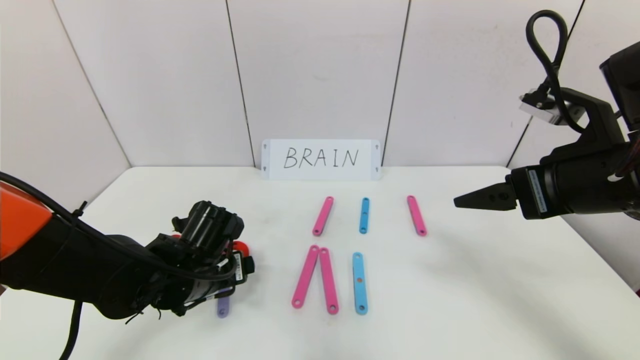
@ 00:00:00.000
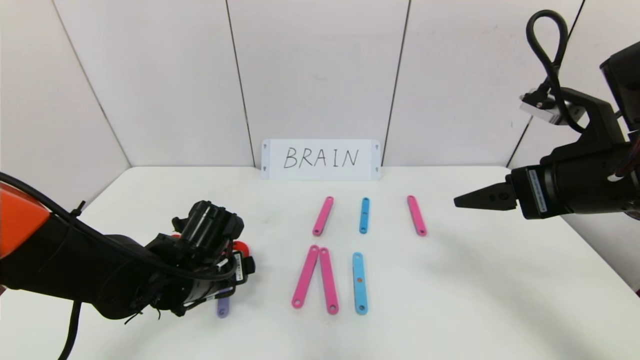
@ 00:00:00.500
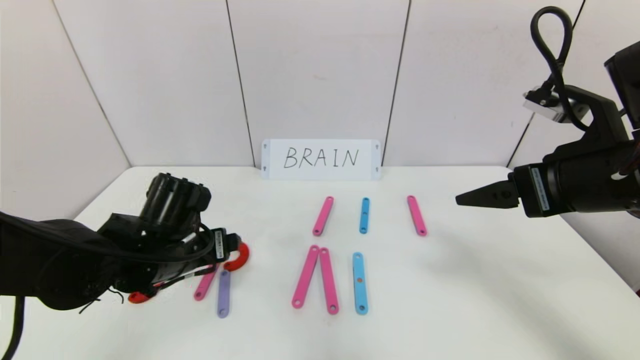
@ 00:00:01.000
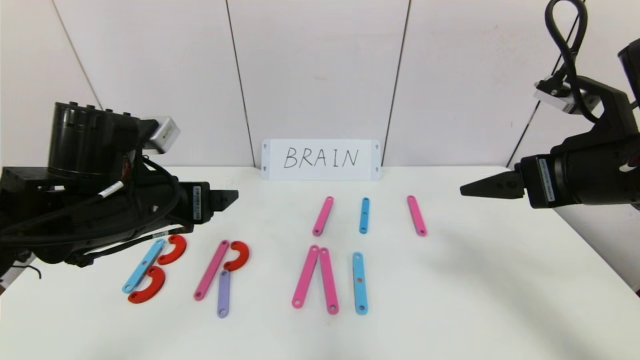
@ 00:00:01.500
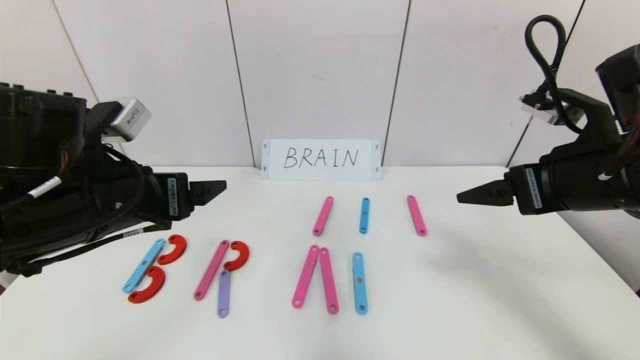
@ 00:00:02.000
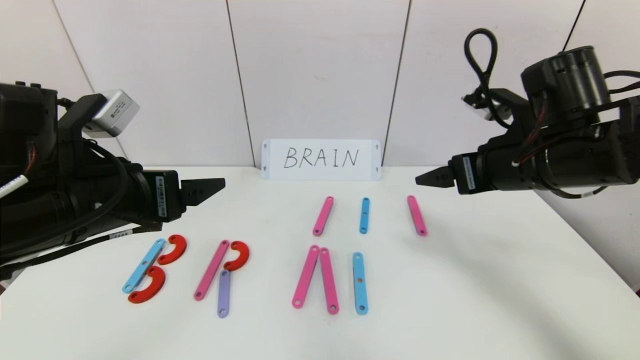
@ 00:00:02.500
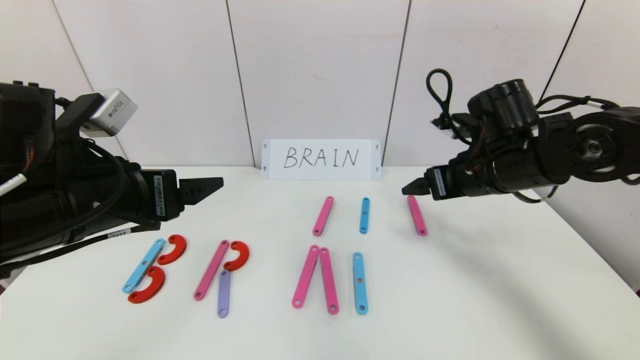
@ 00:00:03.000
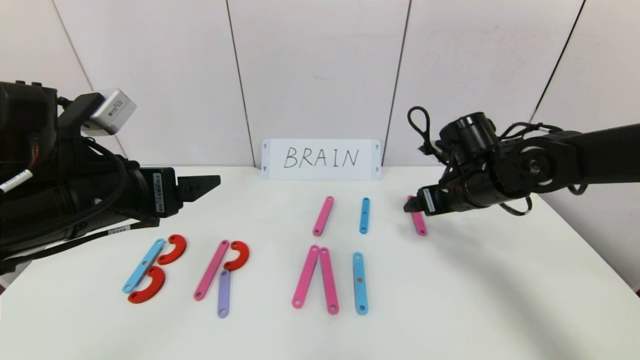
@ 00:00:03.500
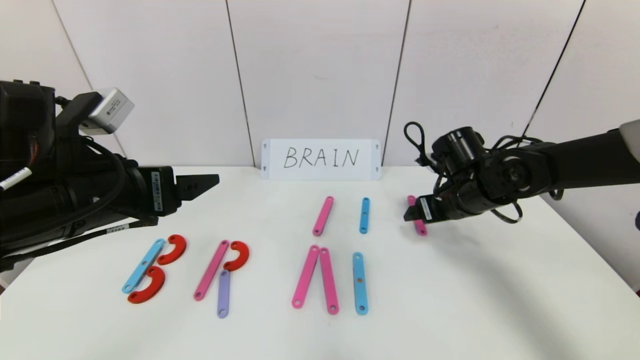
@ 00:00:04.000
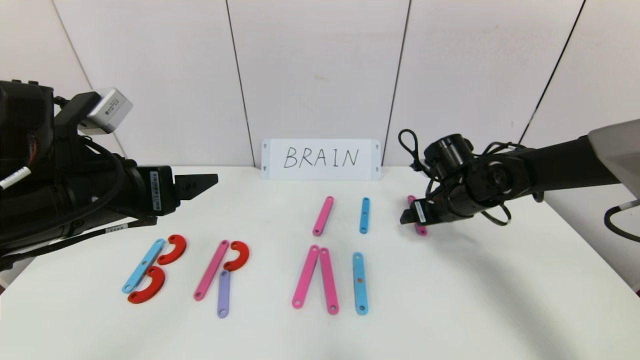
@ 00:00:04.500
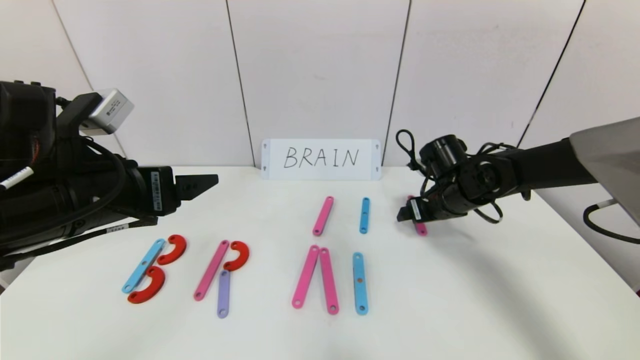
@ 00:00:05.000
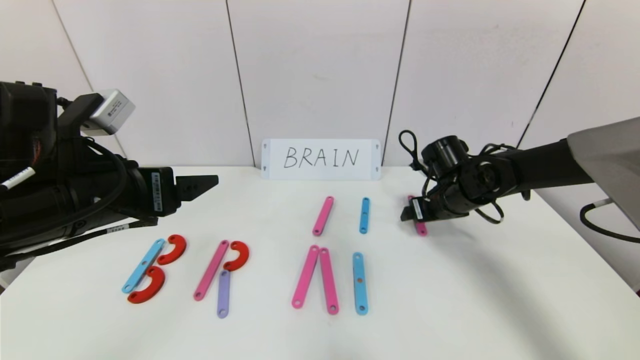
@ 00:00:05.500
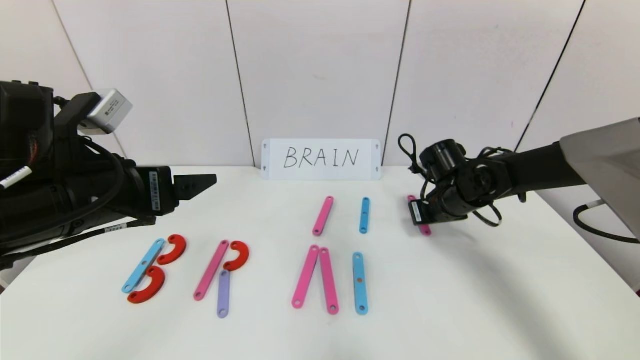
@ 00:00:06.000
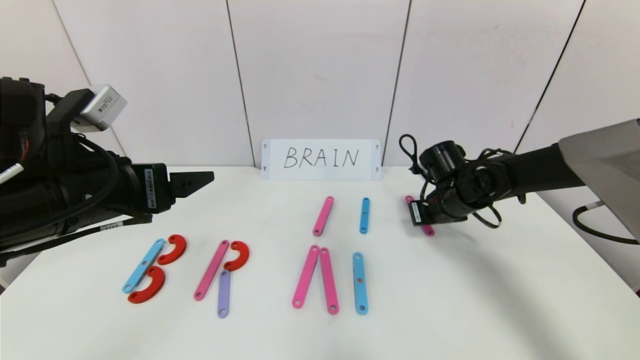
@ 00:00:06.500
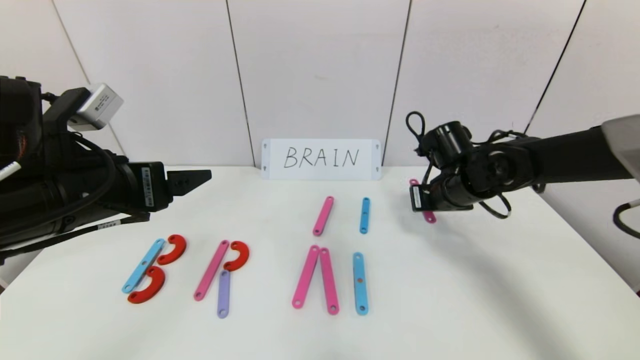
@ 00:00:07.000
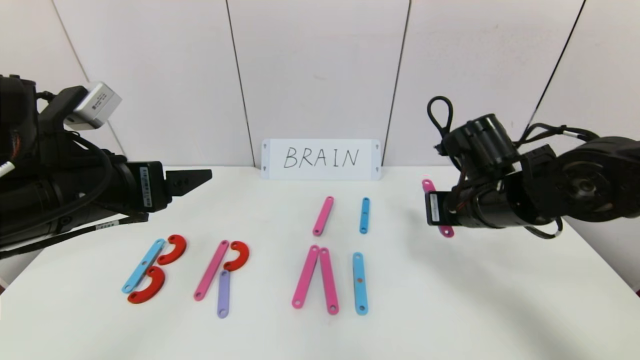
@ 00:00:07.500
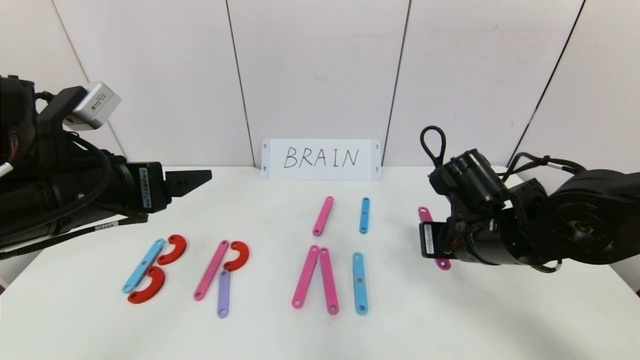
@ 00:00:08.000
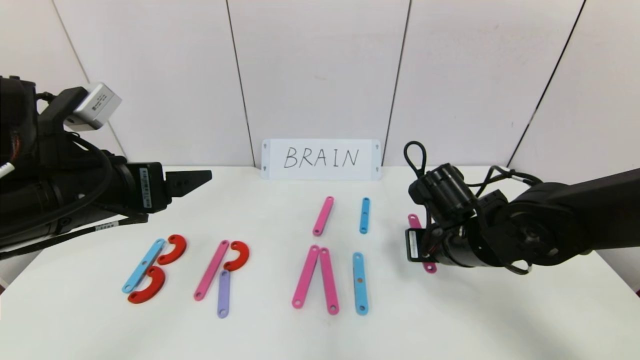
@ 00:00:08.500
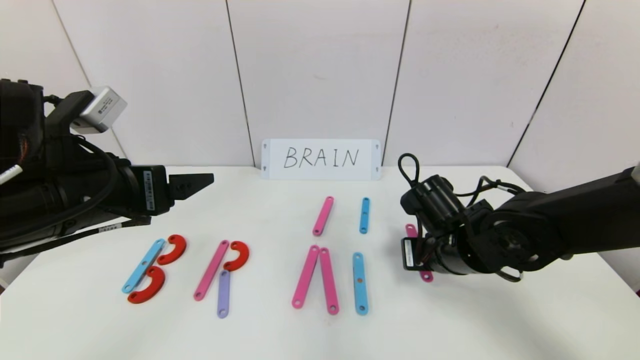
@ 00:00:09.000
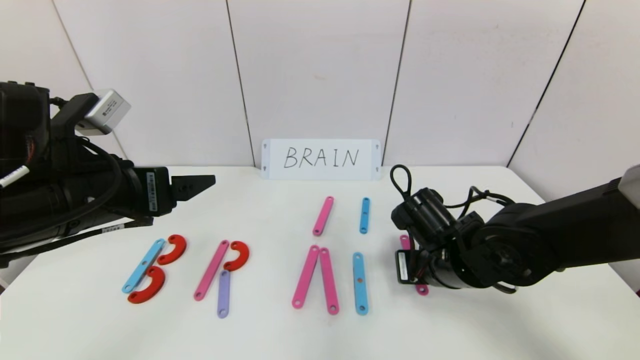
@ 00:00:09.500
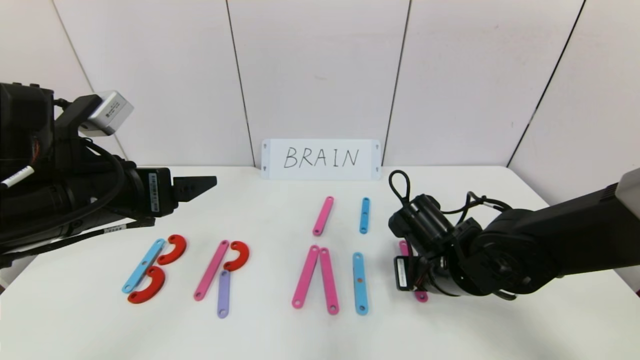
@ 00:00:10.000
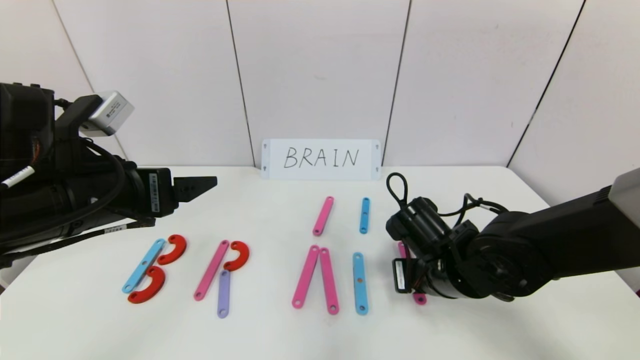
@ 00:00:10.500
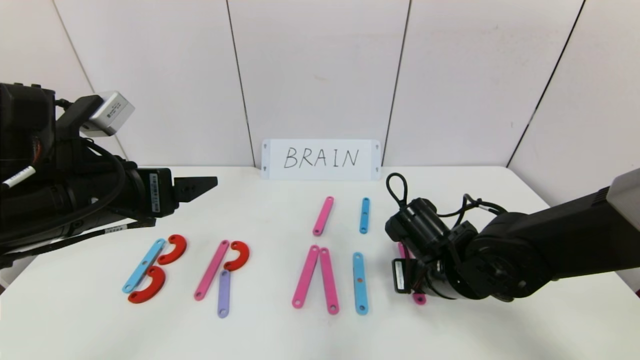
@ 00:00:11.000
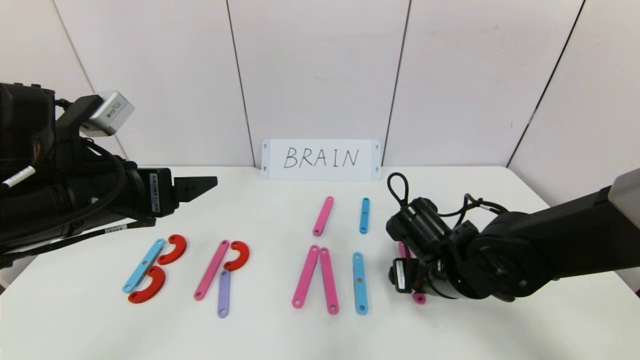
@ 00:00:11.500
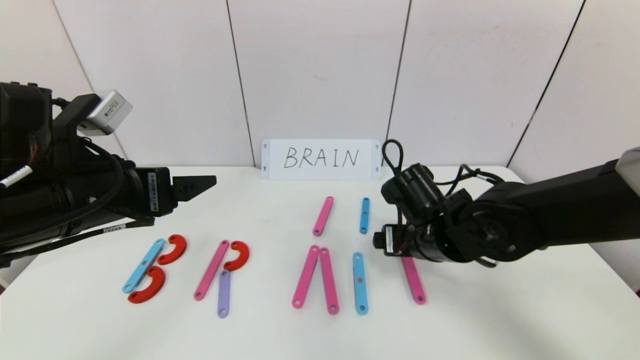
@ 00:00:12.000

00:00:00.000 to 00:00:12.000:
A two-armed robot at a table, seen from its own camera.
Task of the whole recording: rearrange the word baai as brain.
00:00:00.000 to 00:00:02.000: The left gripper is displaced upward by about 15 cm.
00:00:02.000 to 00:00:04.000: The right gripper goes approximately 20 cm forward and downward.
00:00:04.000 to 00:00:06.000: The right gripper closes its fingers.
00:00:06.000 to 00:00:08.000: The right gripper shifts roughly 15 cm backward.
00:00:08.000 to 00:00:10.000: The right gripper heads downward, covering about 5 cm.
00:00:10.000 to 00:00:12.000: The right gripper opens its fingers.

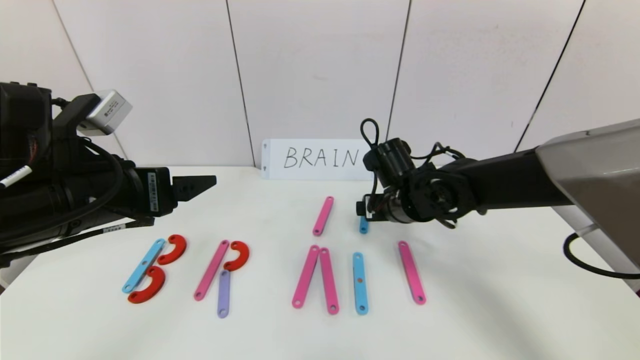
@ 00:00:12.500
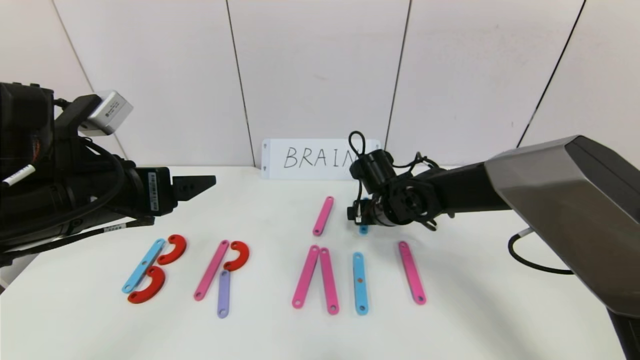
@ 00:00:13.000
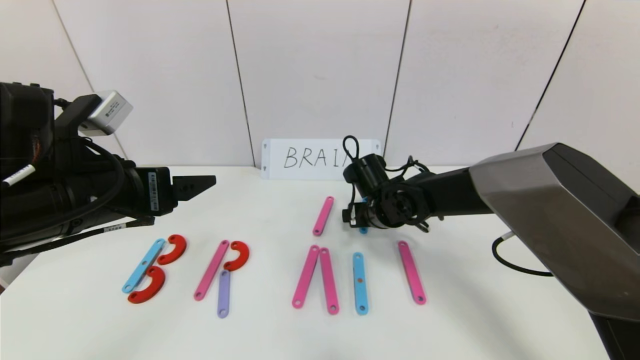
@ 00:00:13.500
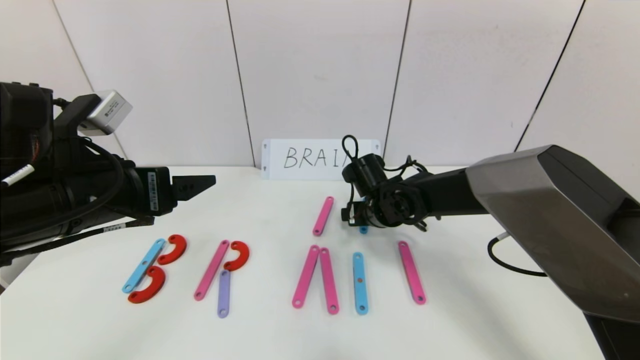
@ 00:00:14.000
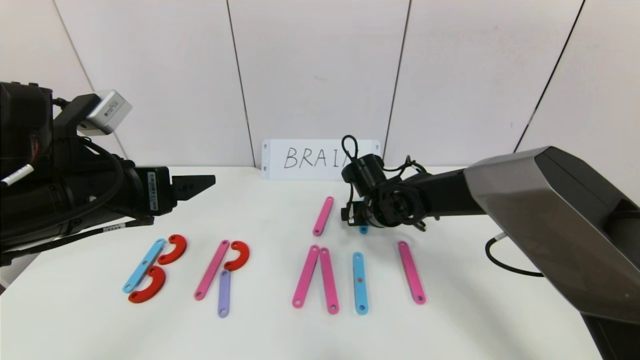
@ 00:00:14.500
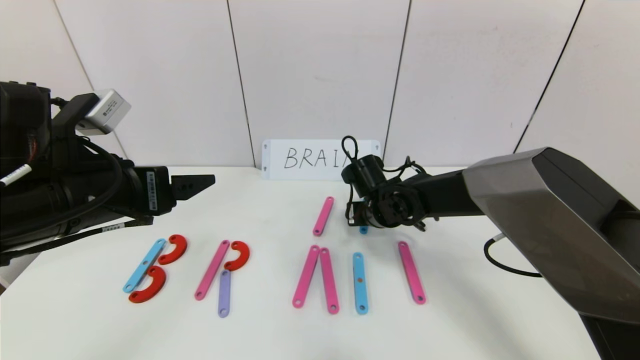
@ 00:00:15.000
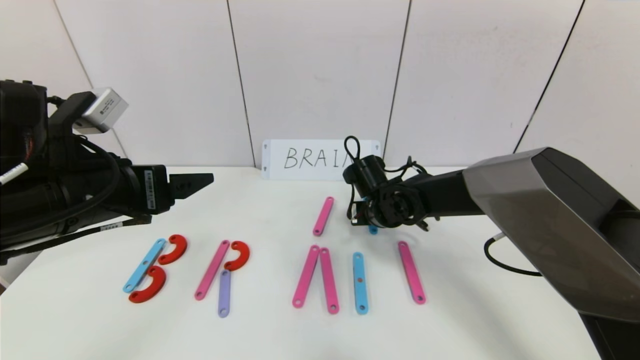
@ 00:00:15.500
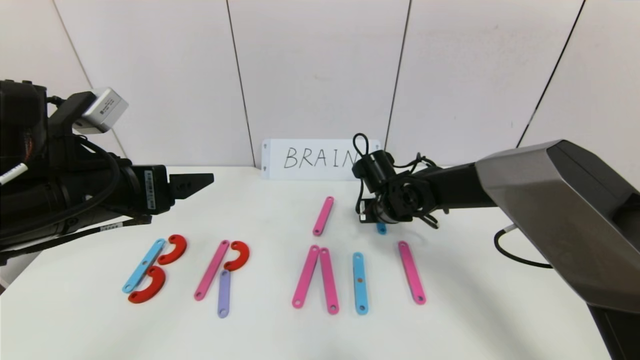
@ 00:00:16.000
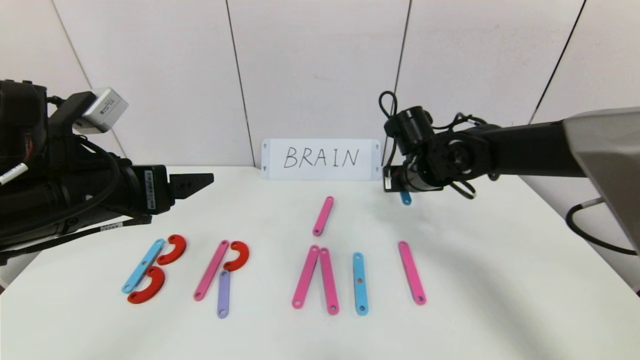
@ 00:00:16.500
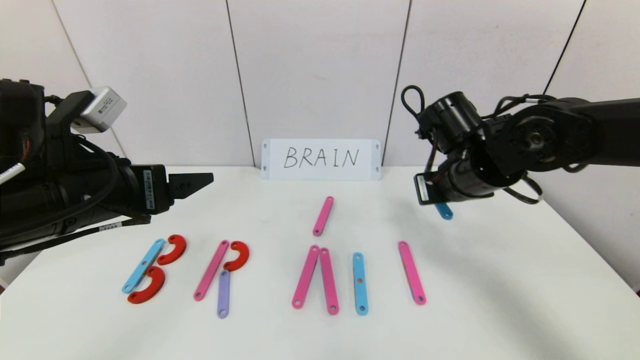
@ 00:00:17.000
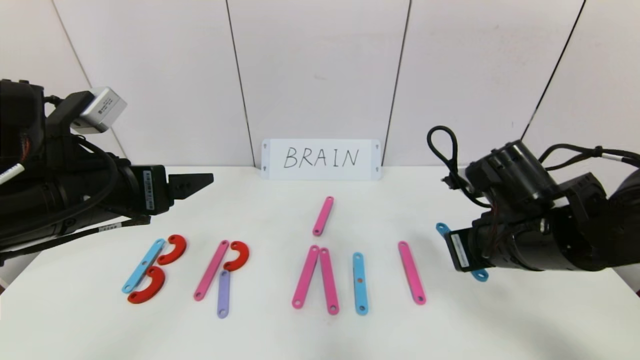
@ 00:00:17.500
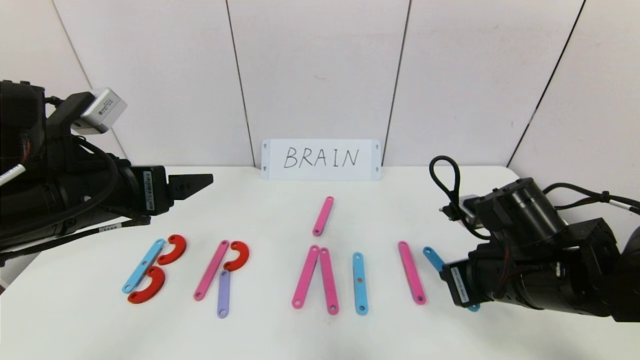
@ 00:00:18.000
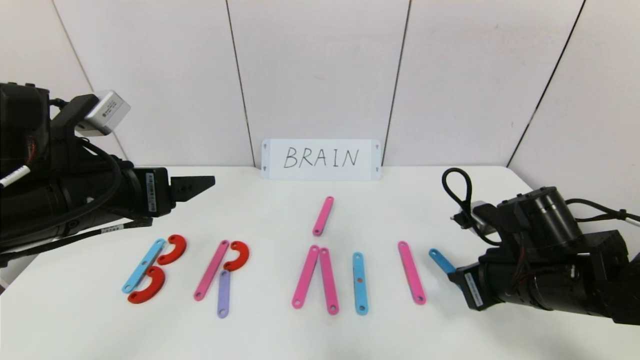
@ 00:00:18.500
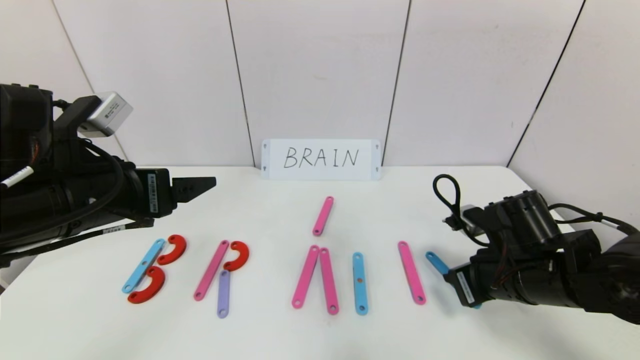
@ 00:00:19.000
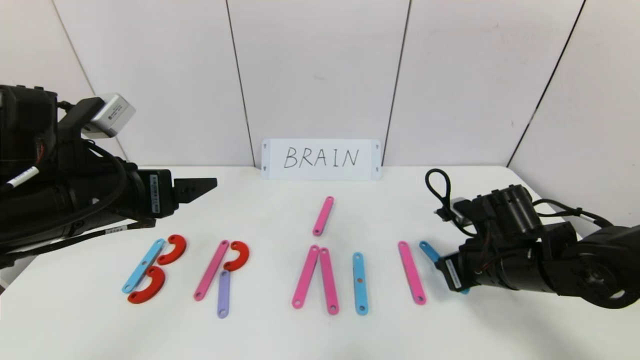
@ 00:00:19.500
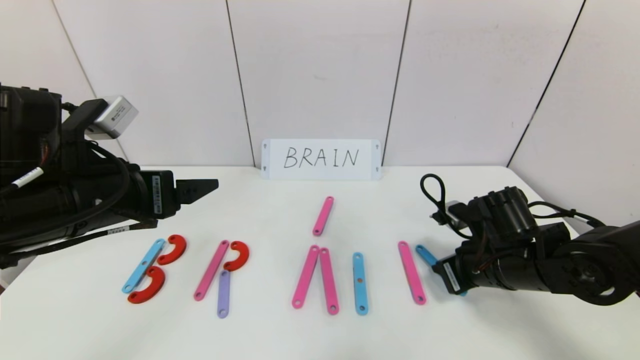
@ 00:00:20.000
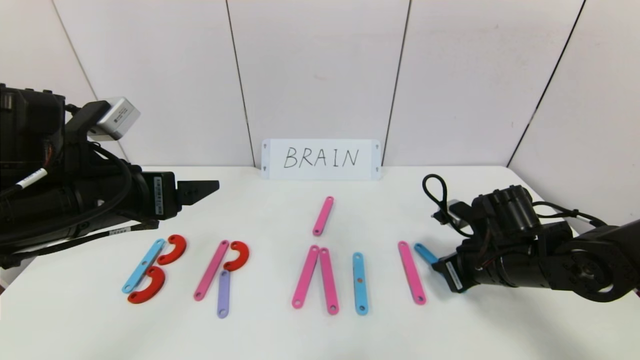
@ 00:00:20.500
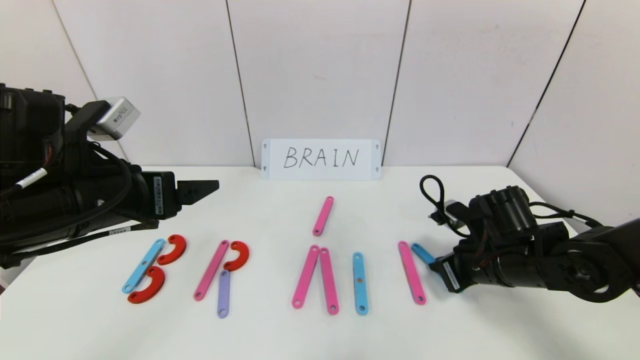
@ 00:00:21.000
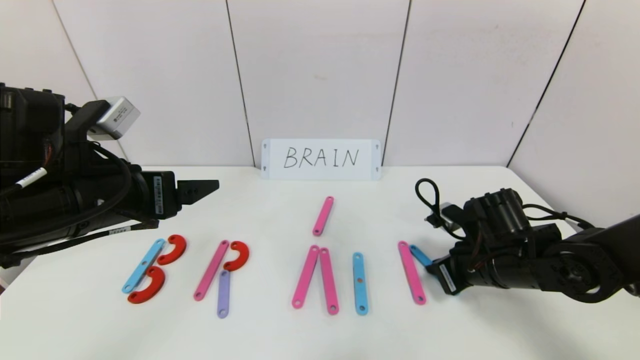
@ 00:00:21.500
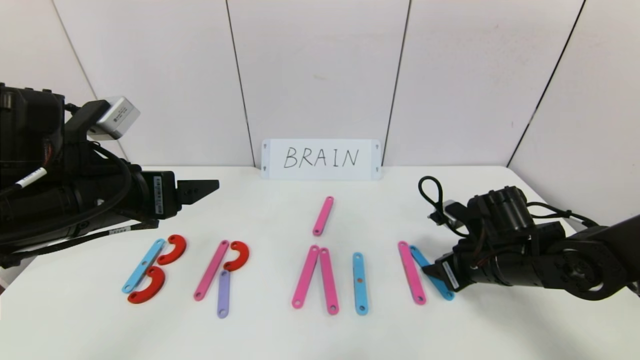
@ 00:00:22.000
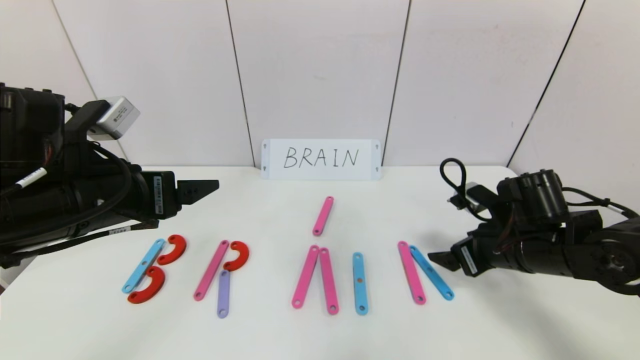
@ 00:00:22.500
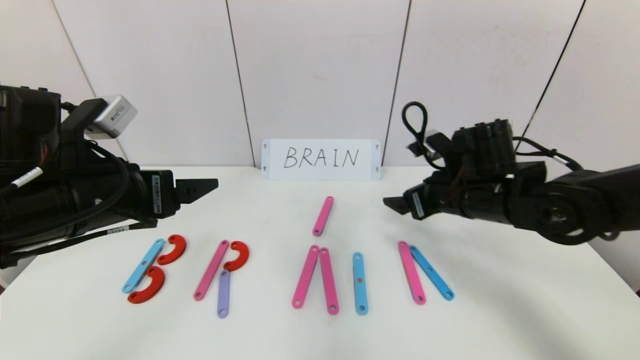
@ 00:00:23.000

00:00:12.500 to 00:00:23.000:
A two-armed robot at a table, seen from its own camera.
Task of the whole recording: rearrange the word baai as brain.
00:00:12.500 to 00:00:14.500: The right gripper is displaced downward by roughly 5 cm.
00:00:14.500 to 00:00:16.500: The right gripper heads upward and to the right, covering some 10 cm, and closes.
00:00:16.500 to 00:00:19.000: The right gripper is displaced backward and to the right by approximately 20 cm.
00:00:19.000 to 00:00:21.000: There are only small adjustments of the grippers.
00:00:21.000 to 00:00:23.000: The right gripper travels upward, to the left and forward by approximately 10 cm, and opens.
